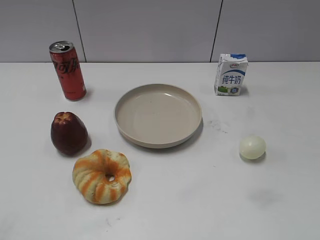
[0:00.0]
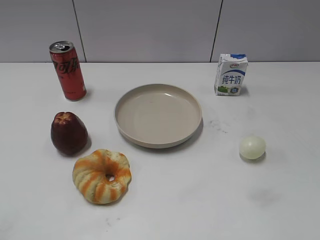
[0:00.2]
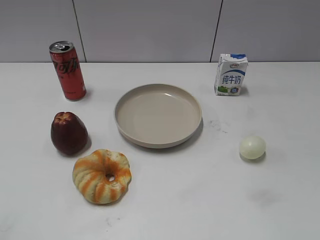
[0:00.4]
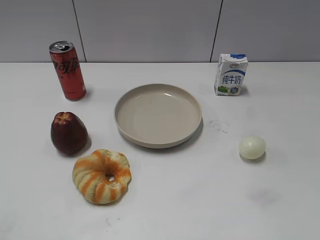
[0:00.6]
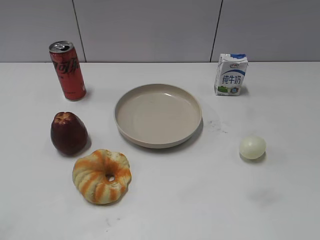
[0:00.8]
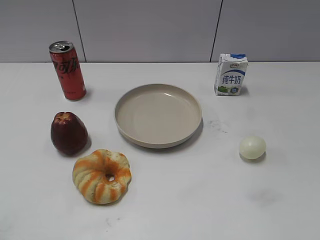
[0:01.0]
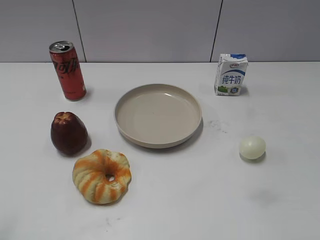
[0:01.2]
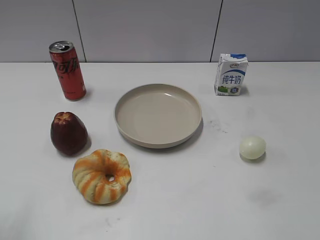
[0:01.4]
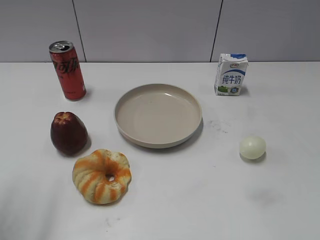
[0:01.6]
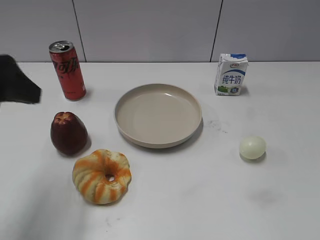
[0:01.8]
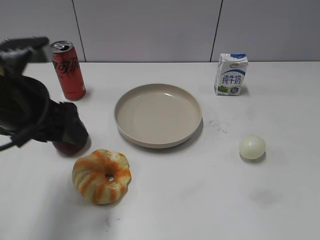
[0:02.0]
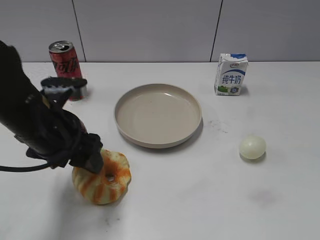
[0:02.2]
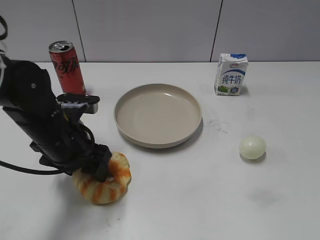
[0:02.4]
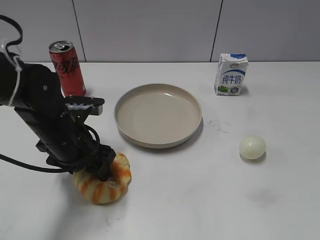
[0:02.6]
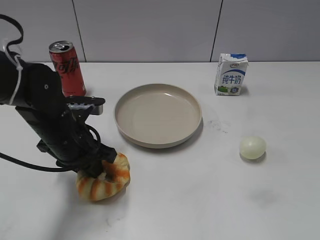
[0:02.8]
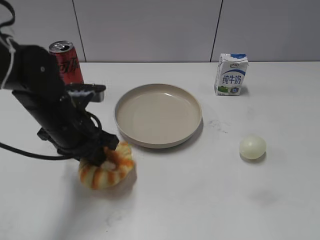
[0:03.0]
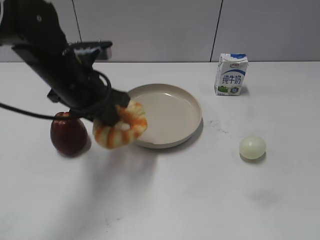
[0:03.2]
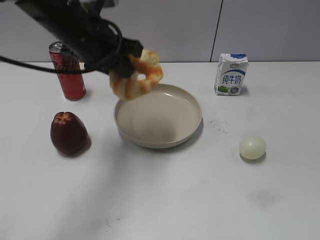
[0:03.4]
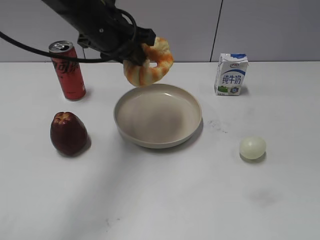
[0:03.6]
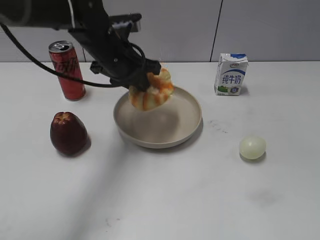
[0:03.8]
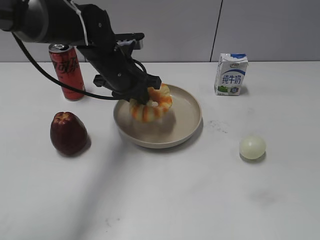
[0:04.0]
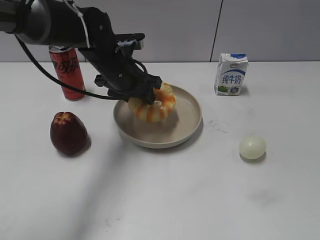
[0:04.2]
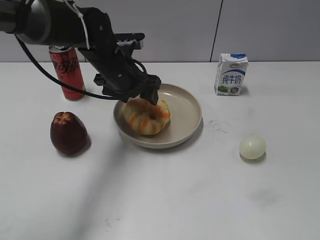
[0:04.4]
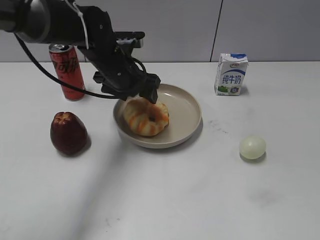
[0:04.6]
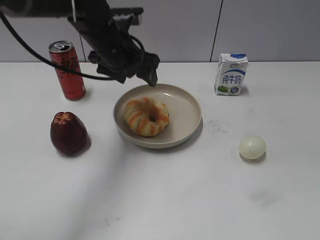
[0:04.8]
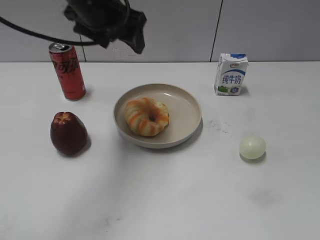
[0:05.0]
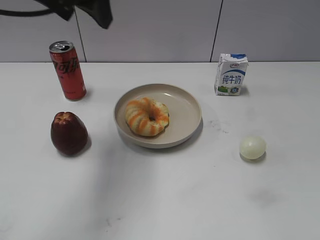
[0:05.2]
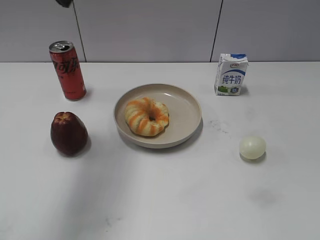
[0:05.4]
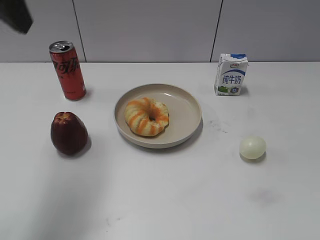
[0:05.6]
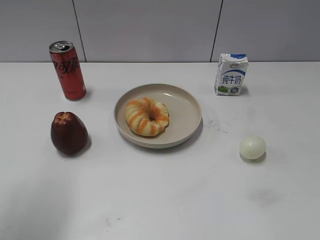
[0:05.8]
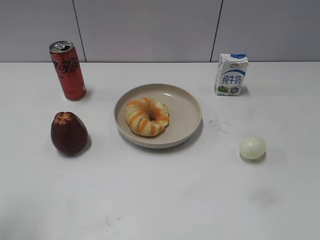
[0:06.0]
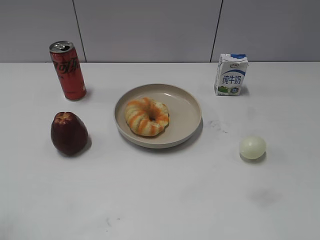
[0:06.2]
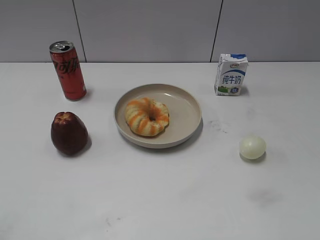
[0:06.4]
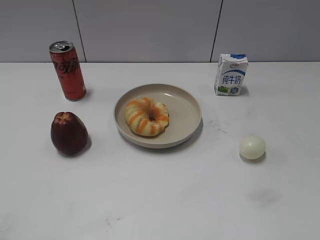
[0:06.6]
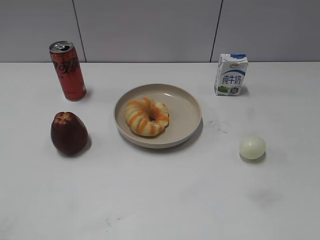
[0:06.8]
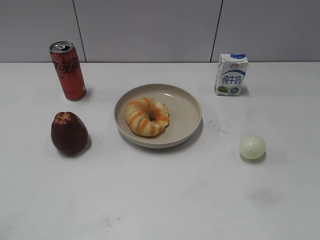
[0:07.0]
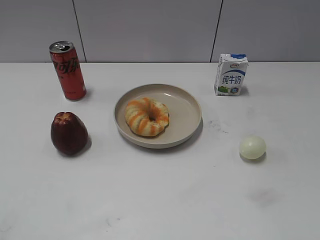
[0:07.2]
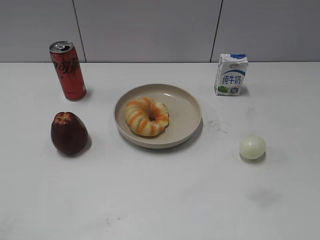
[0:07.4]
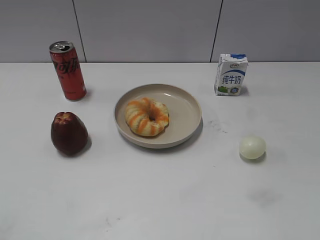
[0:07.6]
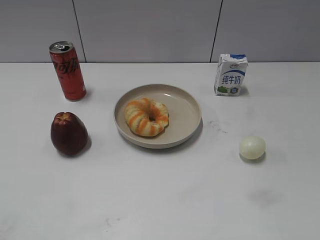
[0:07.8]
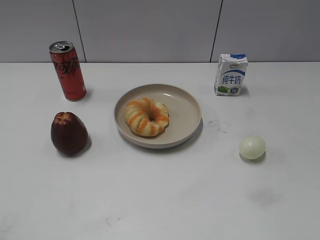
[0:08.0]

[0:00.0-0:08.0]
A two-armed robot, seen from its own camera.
Step, 0:01.0 to 0:02.6: Grasp the round bread with left gripper.
Step, 0:03.0 to 0:04.6: Place the round bread on the plate with left gripper.
0:01.6 to 0:03.2: The left gripper shifts some 20 cm to the right, forward and downward, and closes up.
0:03.2 to 0:04.8: The left gripper moves up and down over some 10 cm, changing direction 2 times, and opens its fingers.
0:04.8 to 0:06.4: The left gripper moves backward and to the left, about 40 cm.

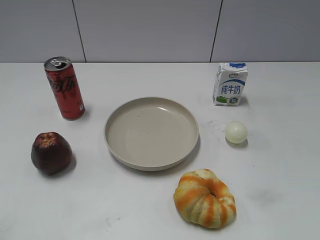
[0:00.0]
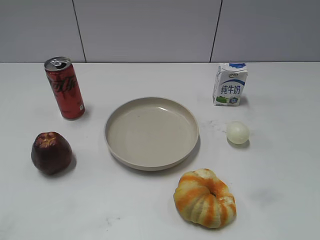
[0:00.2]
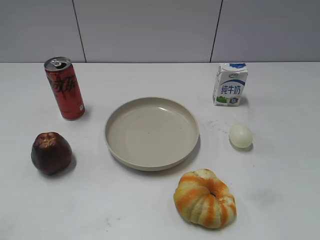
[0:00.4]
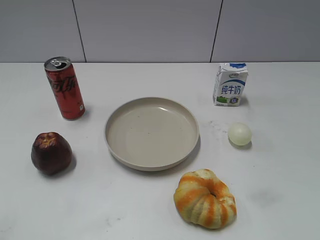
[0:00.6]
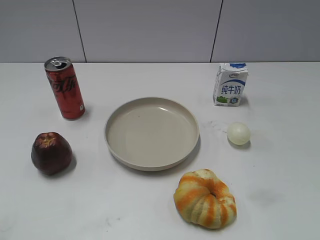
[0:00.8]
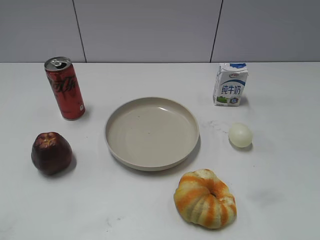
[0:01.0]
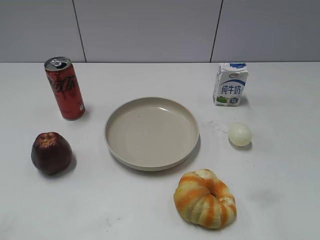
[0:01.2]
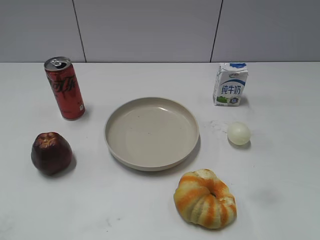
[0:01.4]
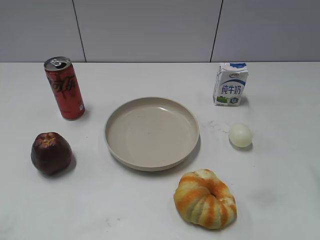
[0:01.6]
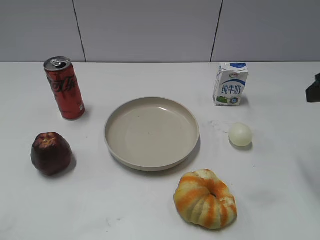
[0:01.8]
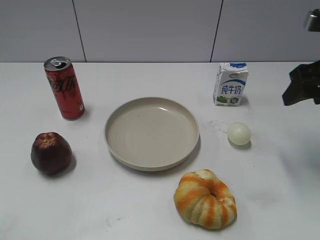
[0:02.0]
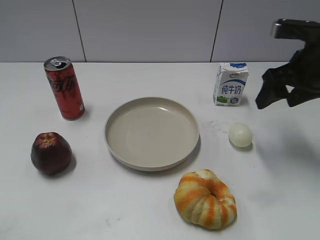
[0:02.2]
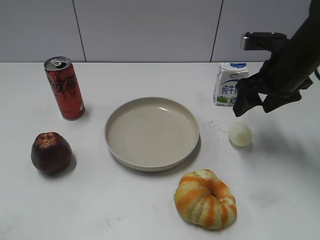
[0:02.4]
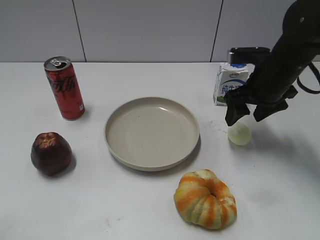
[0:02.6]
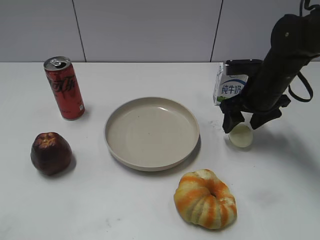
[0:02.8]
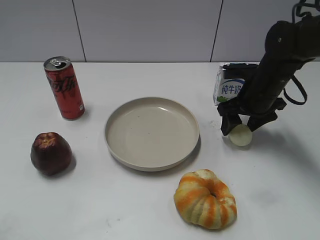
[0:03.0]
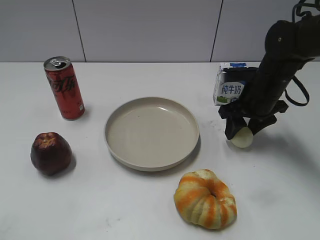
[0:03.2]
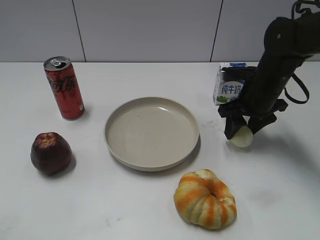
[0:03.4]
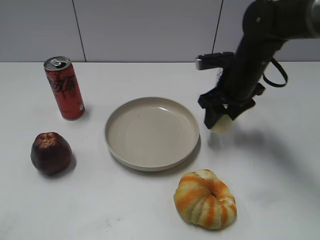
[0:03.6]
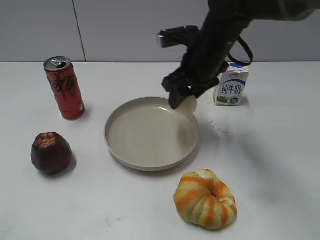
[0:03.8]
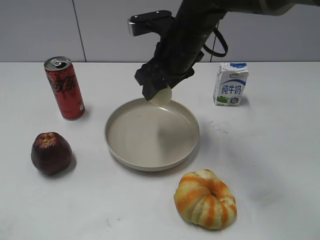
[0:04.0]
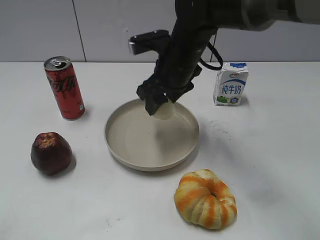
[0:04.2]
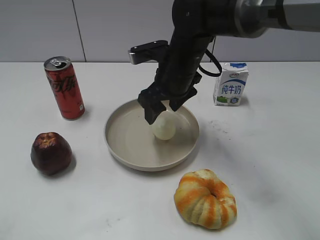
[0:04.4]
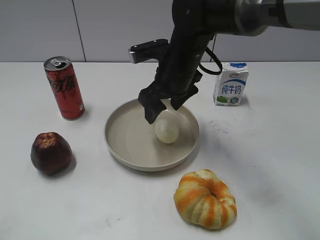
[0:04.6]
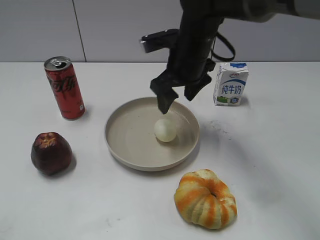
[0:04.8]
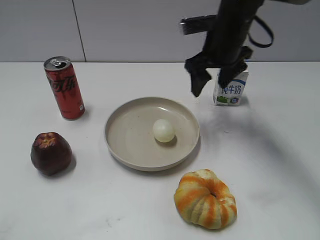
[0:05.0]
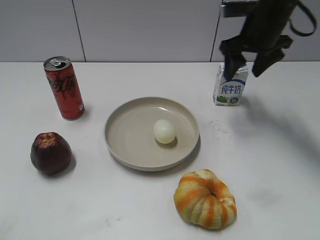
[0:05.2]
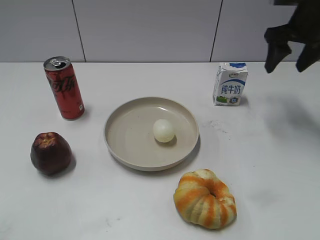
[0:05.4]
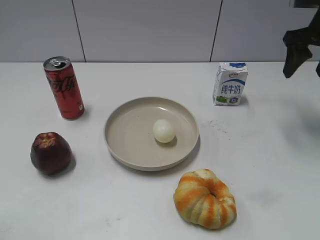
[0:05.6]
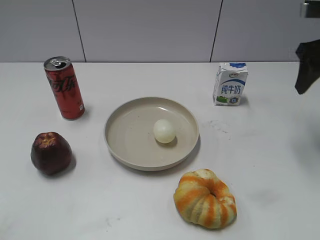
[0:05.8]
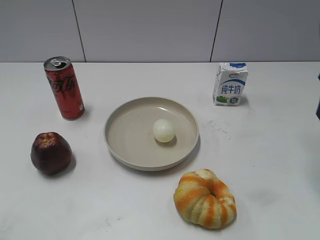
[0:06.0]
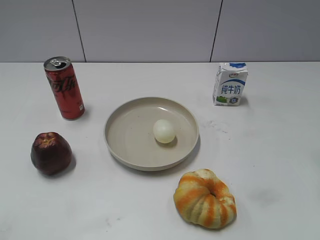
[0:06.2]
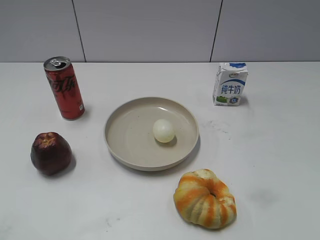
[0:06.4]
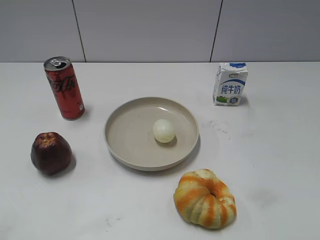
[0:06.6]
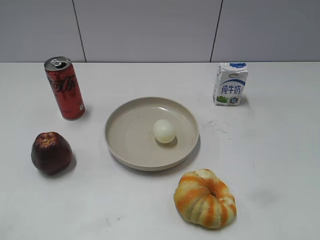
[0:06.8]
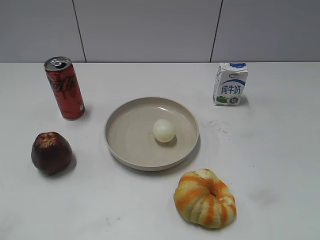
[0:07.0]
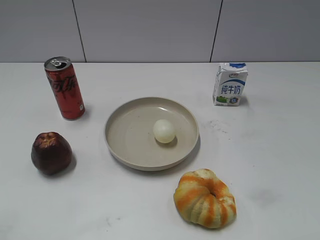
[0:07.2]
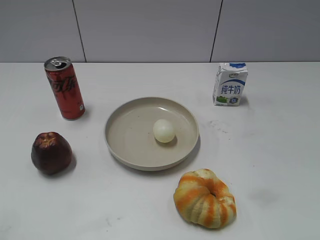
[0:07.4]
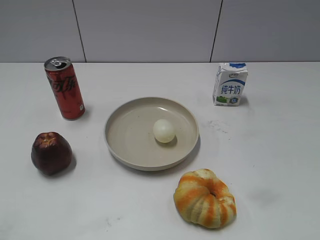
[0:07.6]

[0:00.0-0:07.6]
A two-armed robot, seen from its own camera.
Step, 0:00.0 to 0:03.2: Grasp the egg with right gripper.
Step, 0:03.4 to 0:04.8: Place the egg on the plate with right gripper.
0:01.6 to 0:03.0: The right gripper is displaced forward, downward and to the left by about 25 cm, and opens up.
0:03.0 to 0:04.6: The right gripper shifts some 15 cm to the left, and closes, then reopens.
0:04.6 to 0:06.0: The right gripper is displaced to the right by approximately 25 cm.
